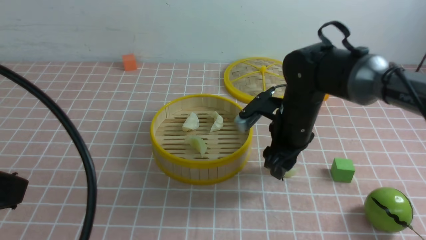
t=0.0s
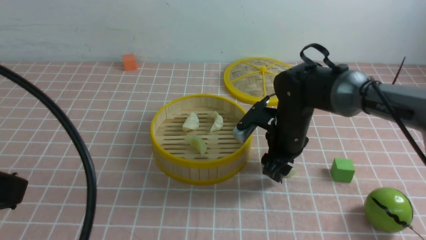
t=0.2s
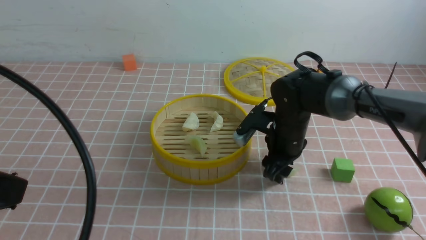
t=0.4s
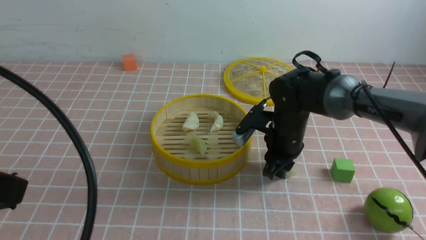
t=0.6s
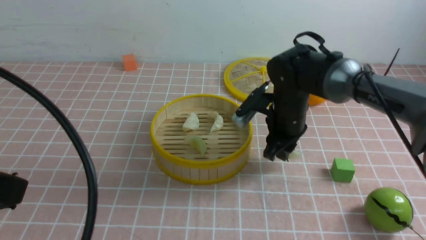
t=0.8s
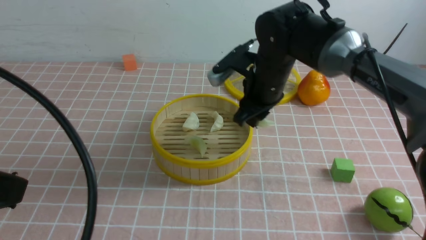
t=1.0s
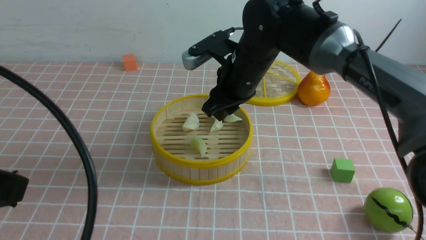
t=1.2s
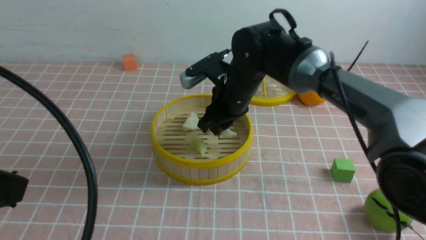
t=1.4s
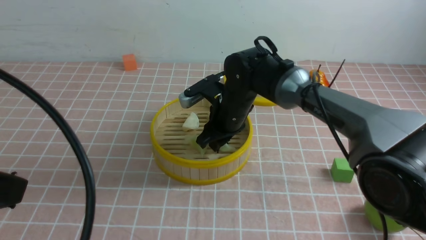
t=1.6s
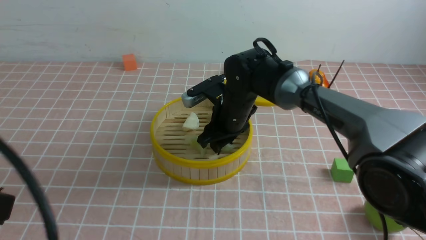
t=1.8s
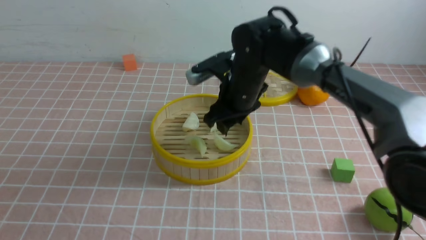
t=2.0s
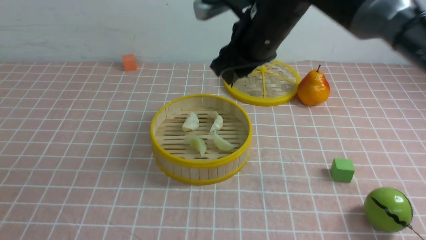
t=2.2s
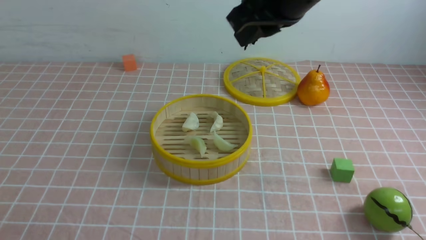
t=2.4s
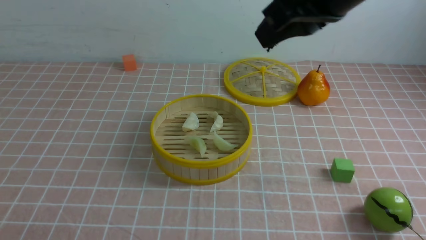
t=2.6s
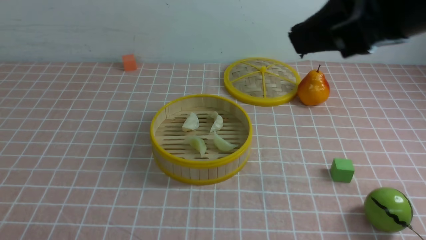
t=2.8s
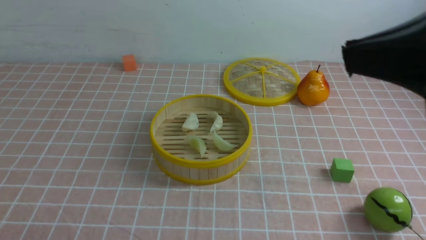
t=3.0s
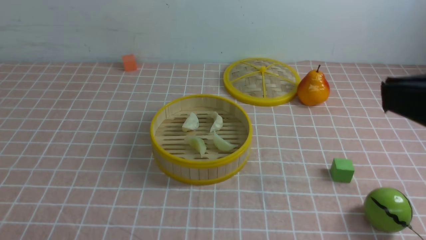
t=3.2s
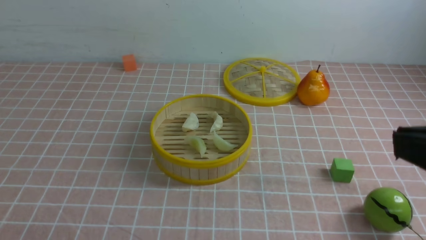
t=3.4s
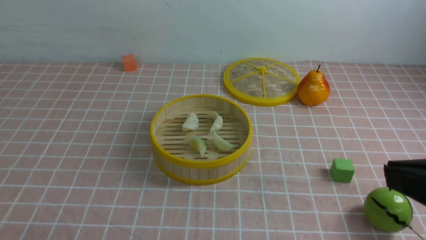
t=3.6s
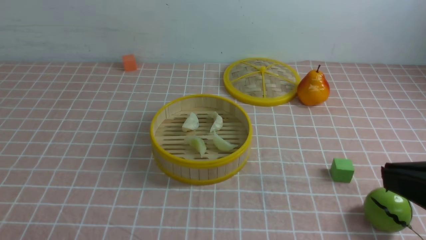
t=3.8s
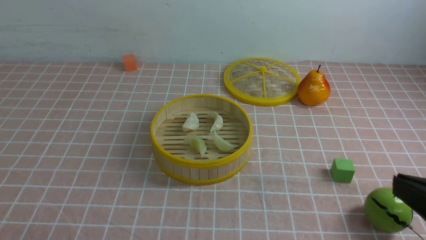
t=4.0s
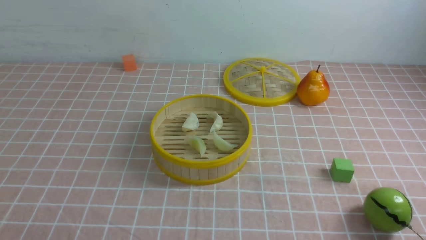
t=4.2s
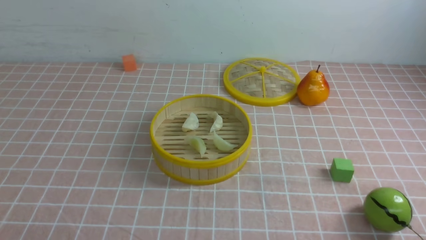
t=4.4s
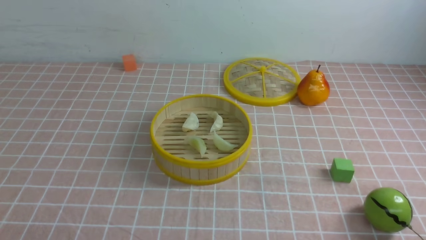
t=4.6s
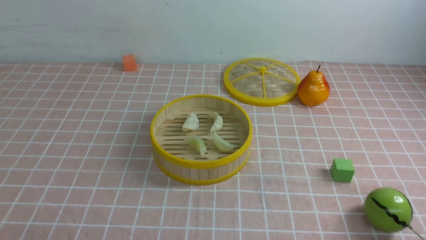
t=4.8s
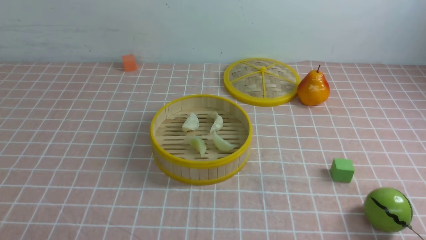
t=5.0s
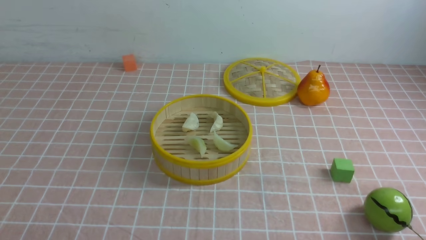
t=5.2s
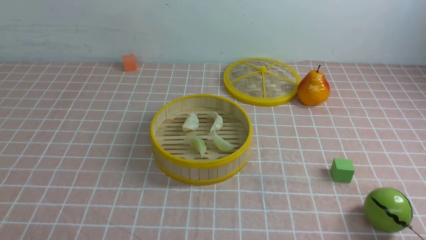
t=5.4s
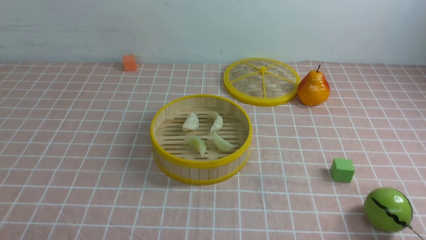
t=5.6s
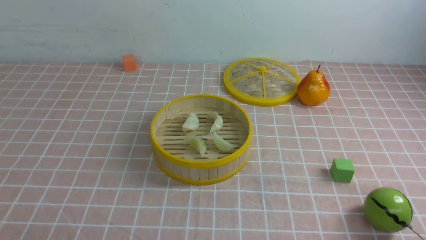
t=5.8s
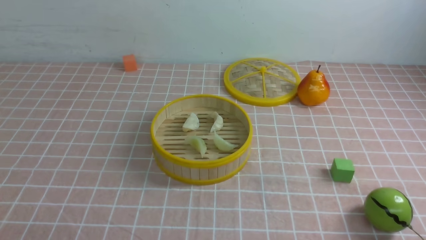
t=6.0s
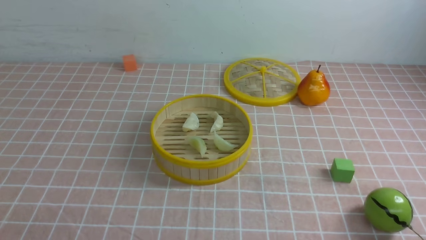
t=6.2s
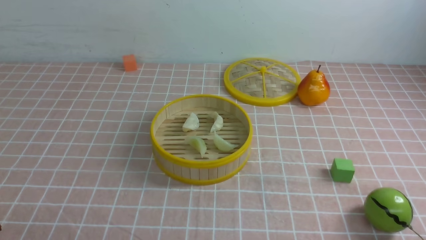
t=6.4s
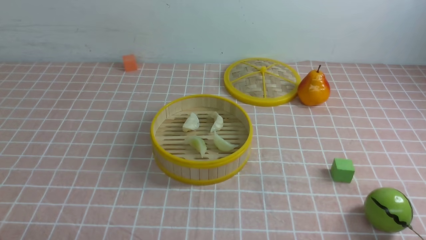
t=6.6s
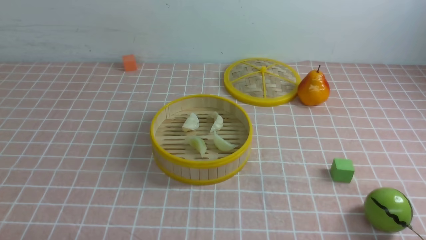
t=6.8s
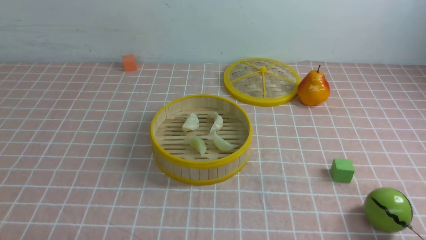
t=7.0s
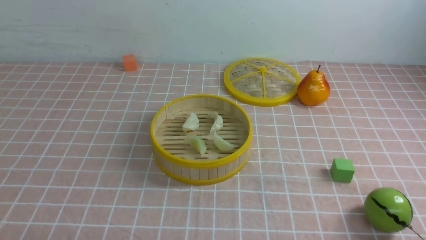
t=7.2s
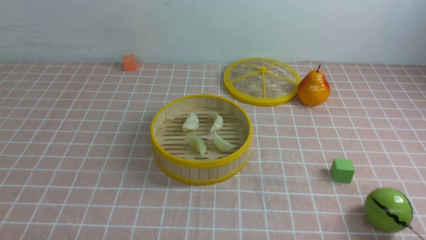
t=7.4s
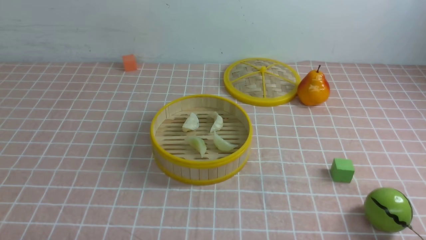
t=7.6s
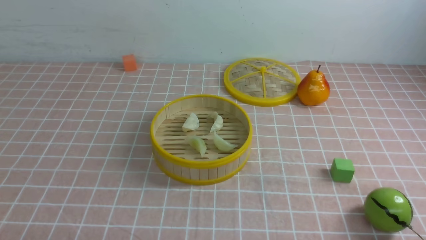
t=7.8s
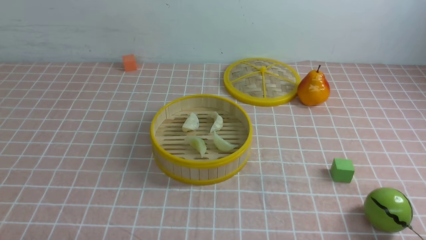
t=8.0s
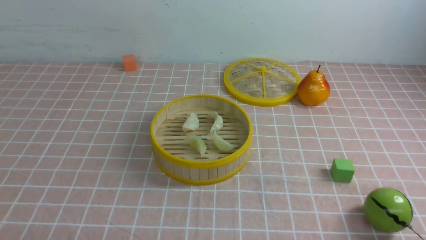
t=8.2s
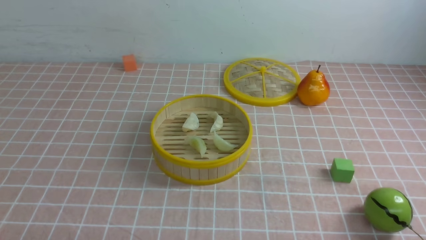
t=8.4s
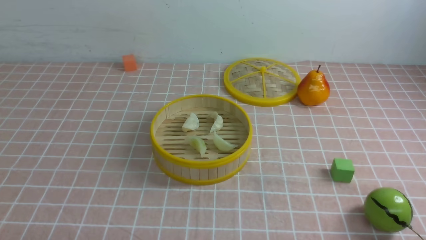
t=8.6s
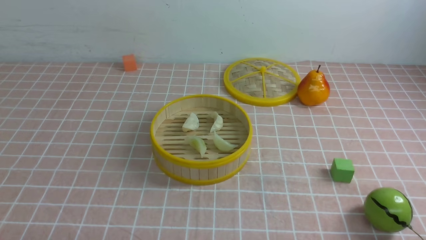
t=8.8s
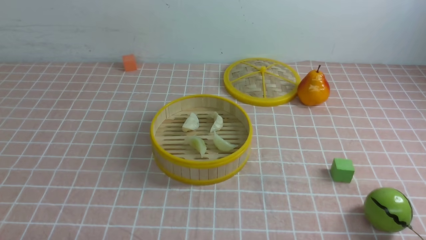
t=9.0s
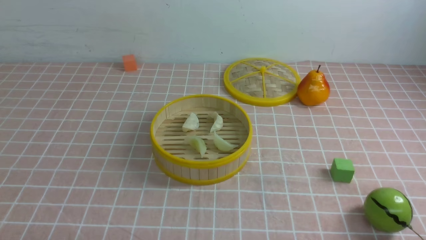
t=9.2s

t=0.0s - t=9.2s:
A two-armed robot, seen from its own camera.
Task of the whole recording: put the dumplings into the steamer on the table with the pink tablecloth.
Step, t=0.8s - t=1.8s: use the right arm to put the dumpling into the steamer.
t=0.0s - t=1.6s: The right gripper goes up and down, some 10 cm each way, reversing 2 times, and closes its fingers.
t=1.6s - t=3.0s: The left gripper is displaced downward and backward by about 15 cm. Meanwhile the right gripper travels backward, upward and to the right by about 40 cm, and closes its fingers.
t=3.0s - t=4.6s: The right gripper moves downward and to the right, approximately 30 cm.
t=7.6s - t=9.2s: Both grippers stay about where they are.
